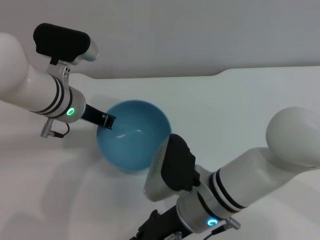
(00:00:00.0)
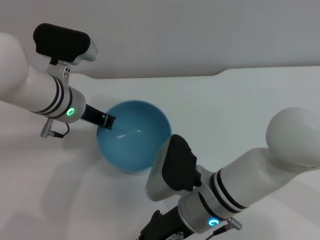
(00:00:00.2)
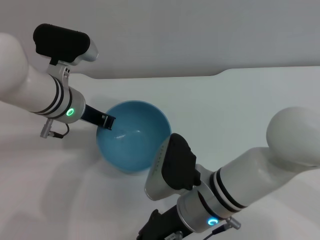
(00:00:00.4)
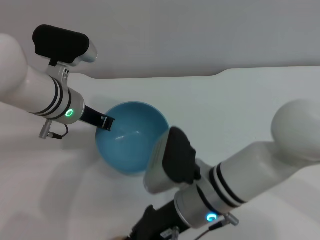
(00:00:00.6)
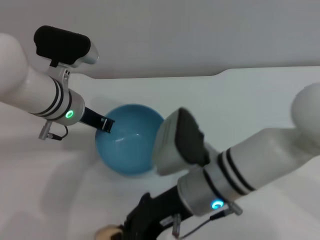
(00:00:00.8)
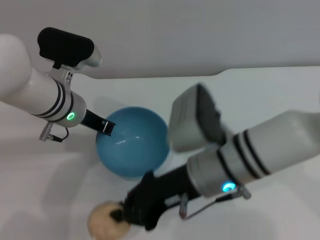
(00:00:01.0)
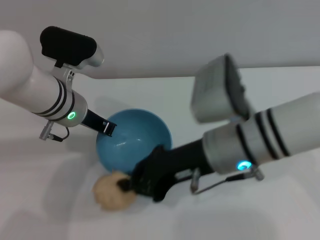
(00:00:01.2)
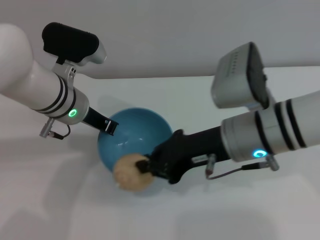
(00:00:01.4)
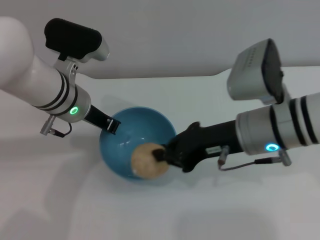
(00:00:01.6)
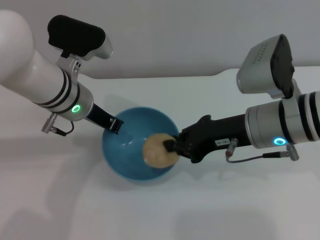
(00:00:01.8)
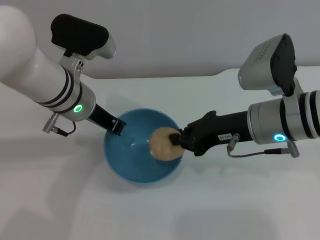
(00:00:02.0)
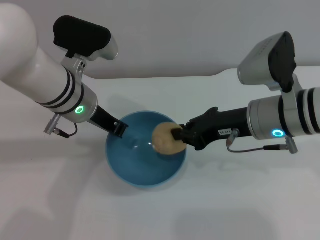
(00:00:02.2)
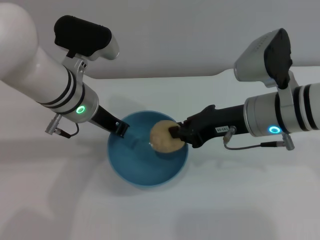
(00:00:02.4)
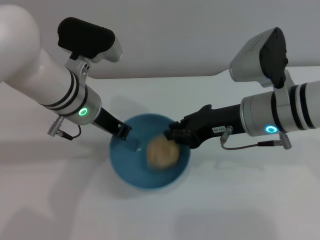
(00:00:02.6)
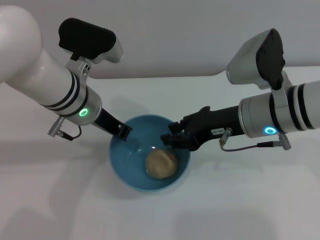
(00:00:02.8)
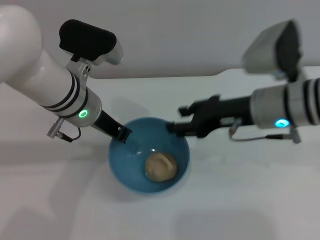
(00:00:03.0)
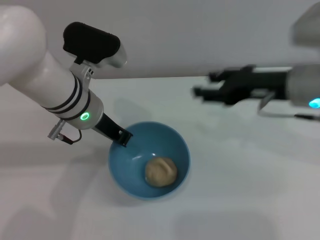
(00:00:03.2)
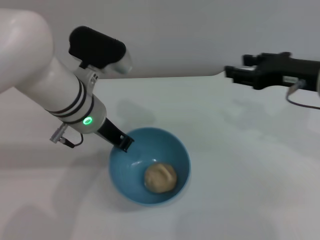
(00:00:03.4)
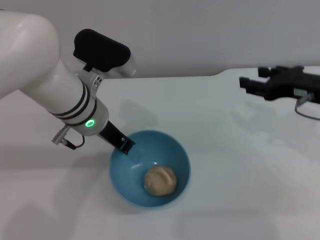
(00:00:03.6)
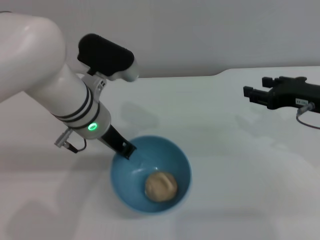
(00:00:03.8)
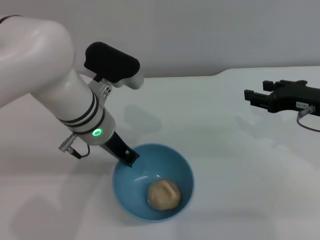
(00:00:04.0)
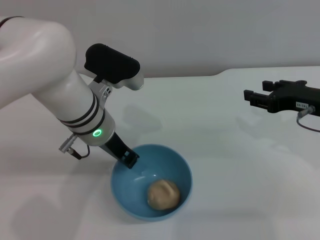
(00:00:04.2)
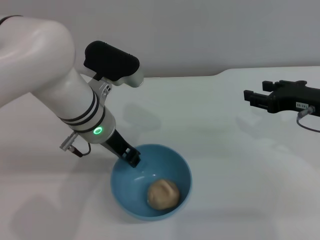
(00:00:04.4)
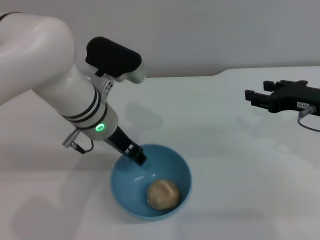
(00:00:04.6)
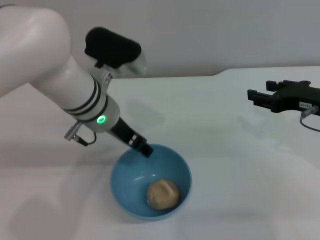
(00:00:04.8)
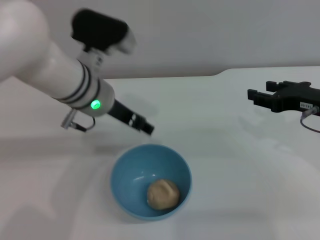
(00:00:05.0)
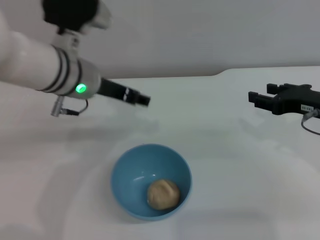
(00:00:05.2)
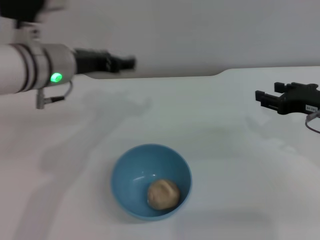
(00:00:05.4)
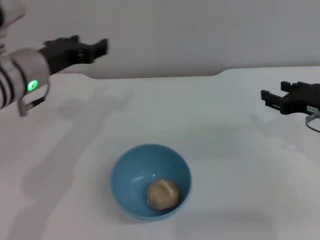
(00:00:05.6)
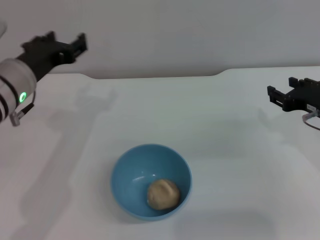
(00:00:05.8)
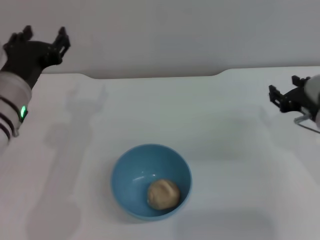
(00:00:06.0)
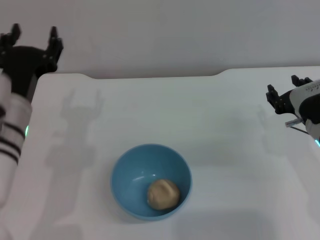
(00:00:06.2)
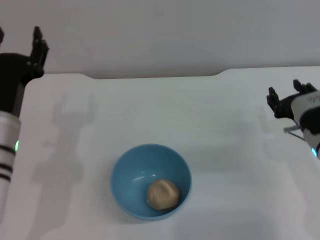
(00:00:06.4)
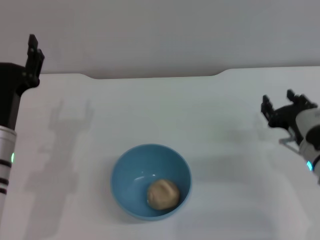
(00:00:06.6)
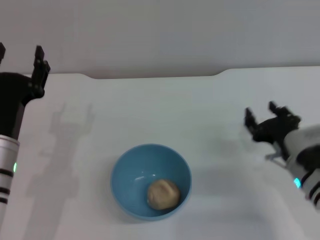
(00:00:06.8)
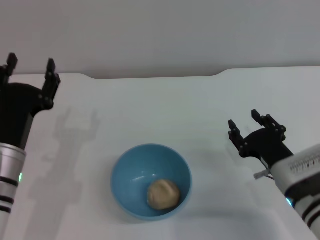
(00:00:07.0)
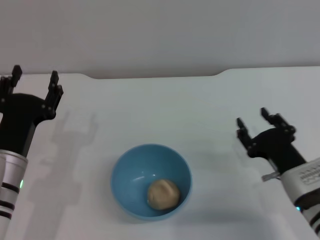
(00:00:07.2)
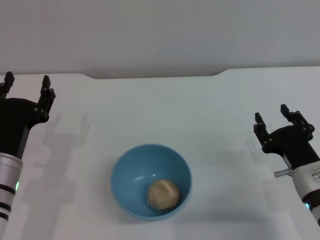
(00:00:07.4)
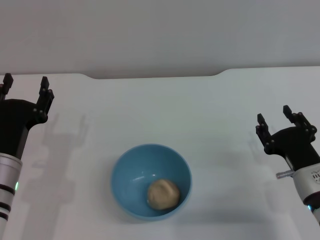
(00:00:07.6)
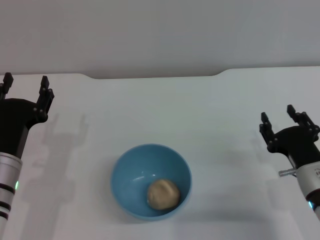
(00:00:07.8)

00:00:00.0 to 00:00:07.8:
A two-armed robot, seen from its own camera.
Task of the whole recording: put the egg yolk pastry into the blue bowl and pour it out repeatedly.
Step, 00:00:01.4 to 00:00:02.8: Place the egg yolk pastry into the bowl.
Step, 00:00:03.2 to 00:00:05.0: Place the bowl on the table.
00:00:00.0 to 00:00:01.6: The right gripper moves upward and to the right, about 10 cm, and closes up.
00:00:01.6 to 00:00:03.2: The right gripper is displaced to the right by approximately 5 cm, and opens its fingers.
00:00:03.2 to 00:00:04.6: The left gripper opens; the right gripper is displaced to the right by roughly 5 cm.
00:00:04.6 to 00:00:06.2: The right gripper is displaced downward by roughly 5 cm, while the left gripper is displaced to the left and backward by roughly 10 cm, and opens its fingers.
00:00:06.2 to 00:00:07.8: The right gripper goes approximately 10 cm backward and downward. Meanwhile the left gripper heads downward, covering roughly 5 cm.
